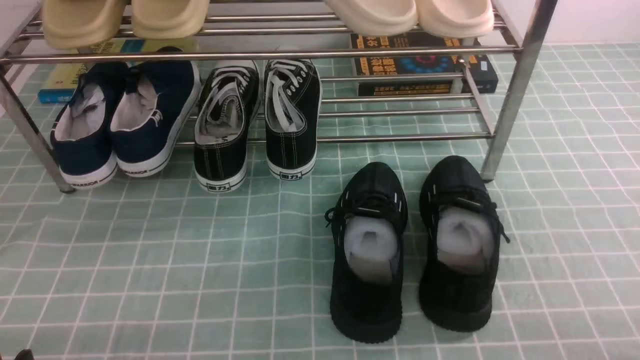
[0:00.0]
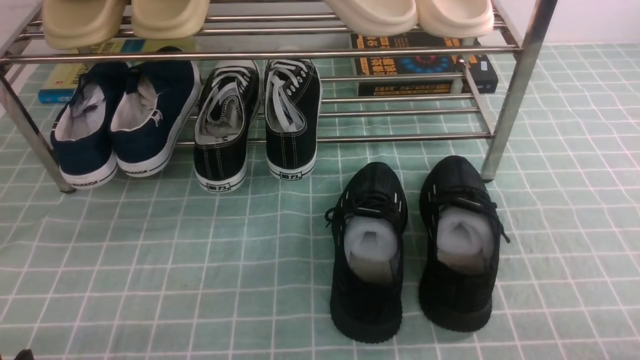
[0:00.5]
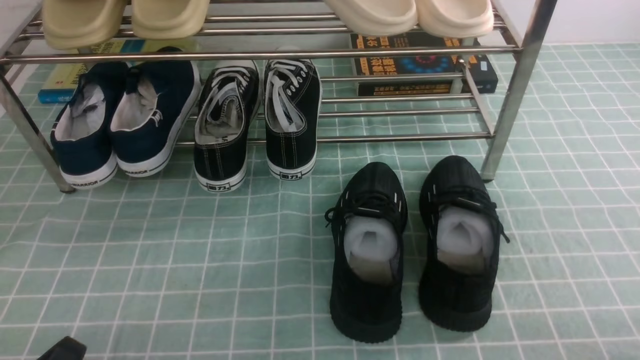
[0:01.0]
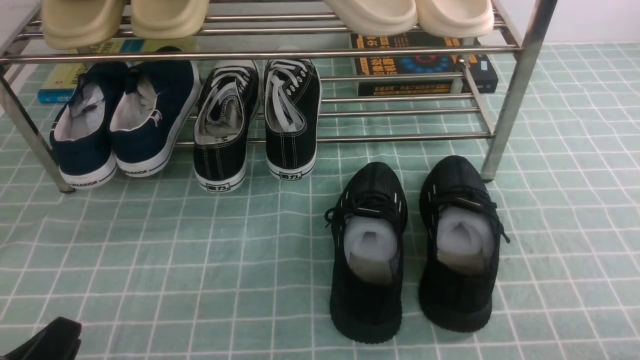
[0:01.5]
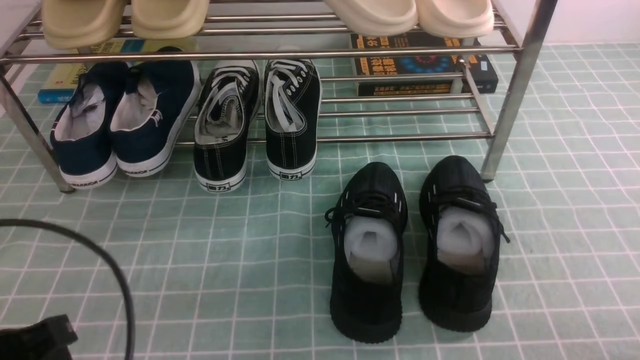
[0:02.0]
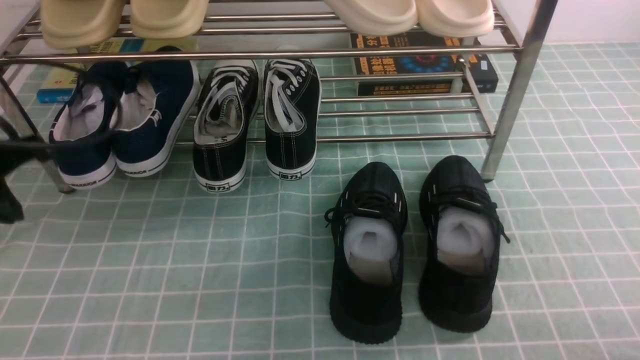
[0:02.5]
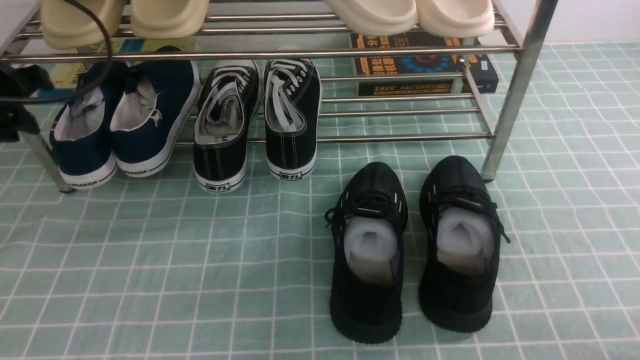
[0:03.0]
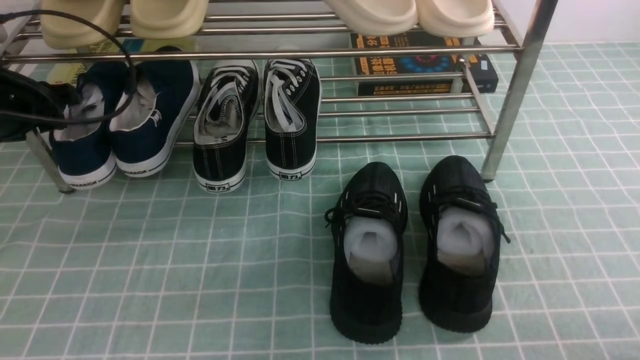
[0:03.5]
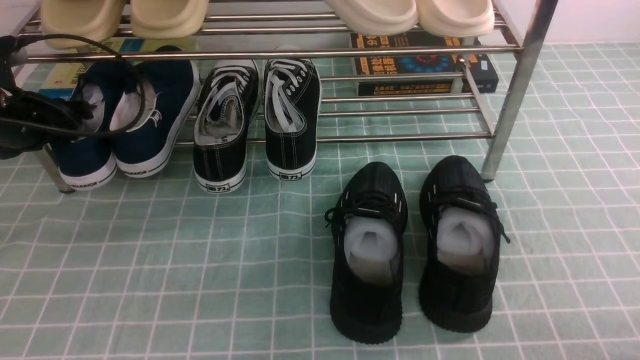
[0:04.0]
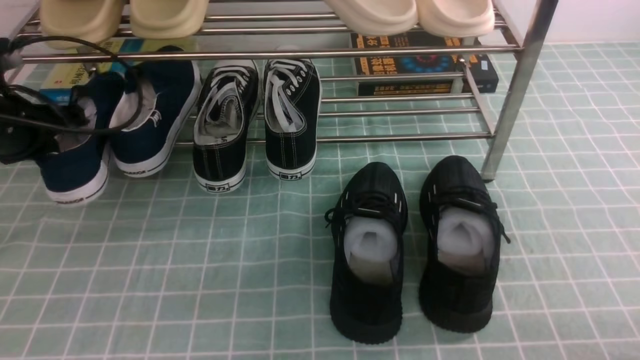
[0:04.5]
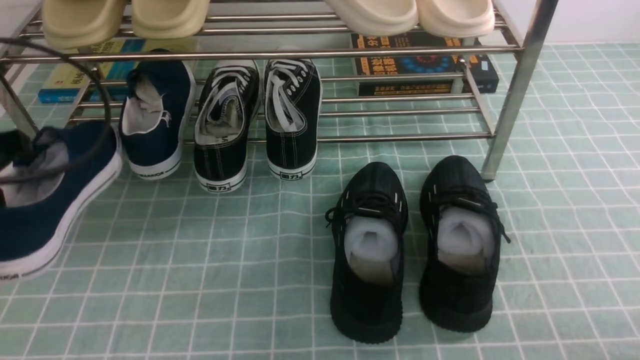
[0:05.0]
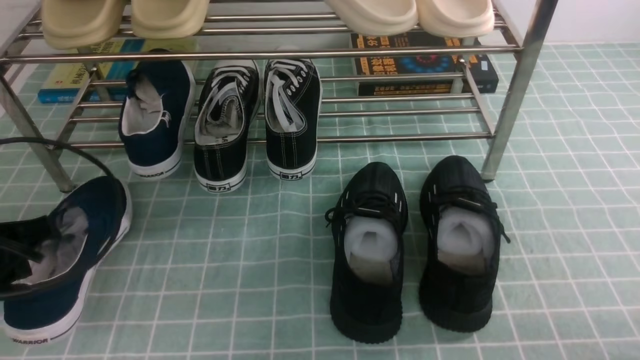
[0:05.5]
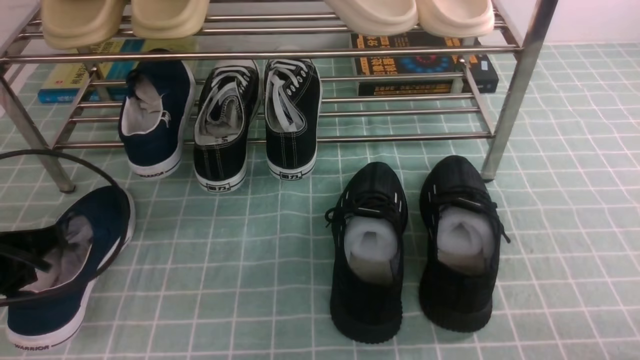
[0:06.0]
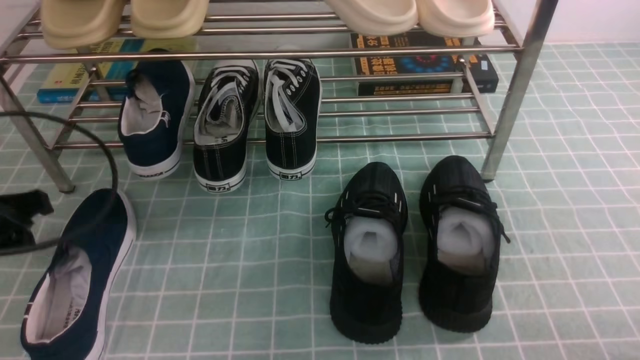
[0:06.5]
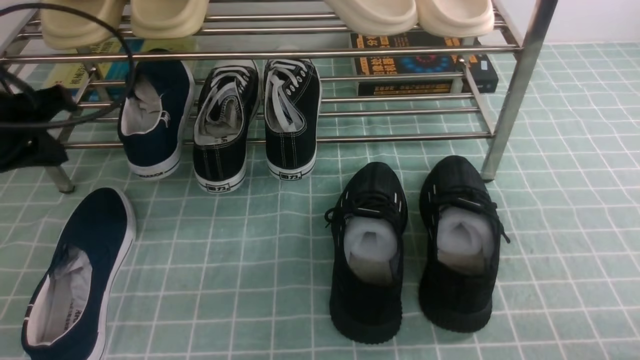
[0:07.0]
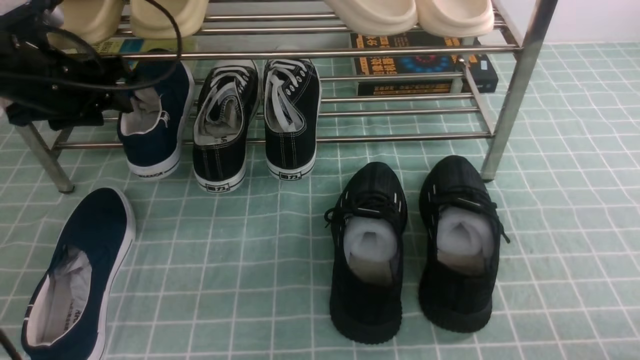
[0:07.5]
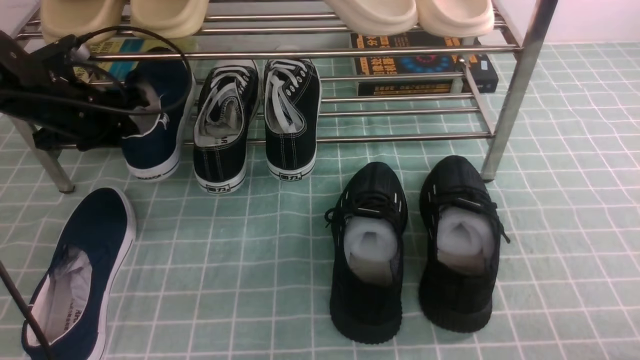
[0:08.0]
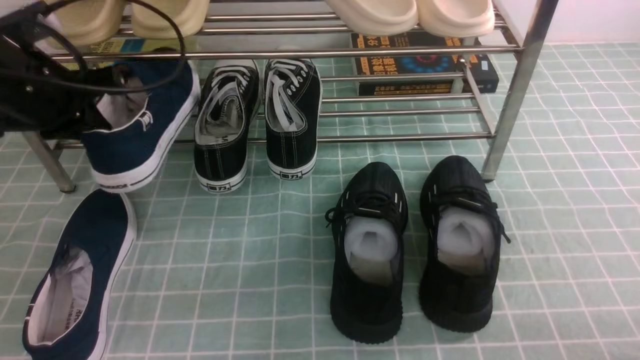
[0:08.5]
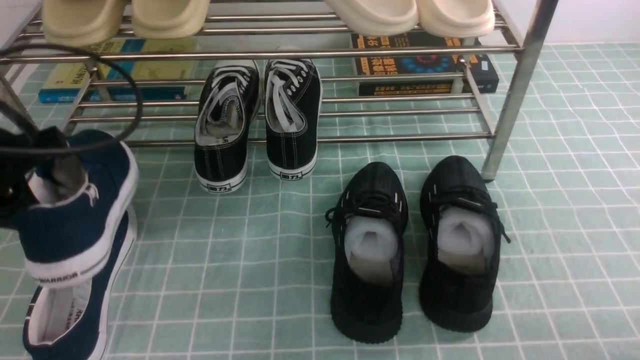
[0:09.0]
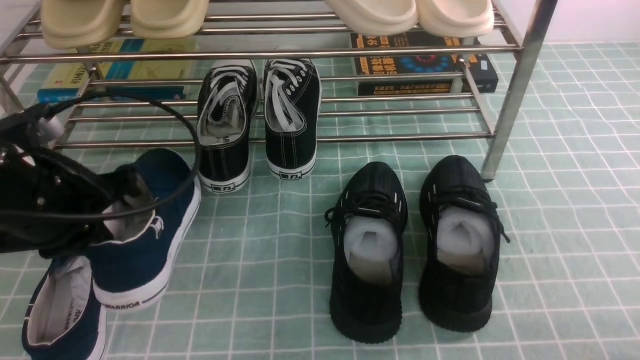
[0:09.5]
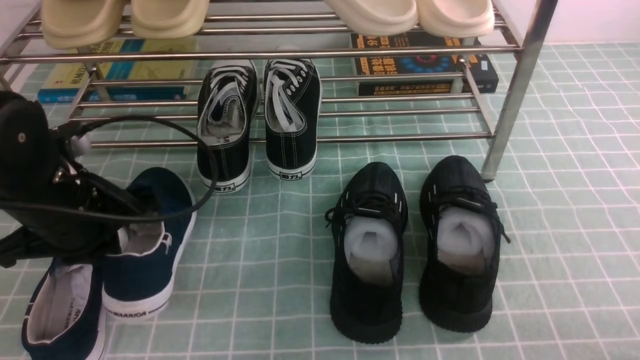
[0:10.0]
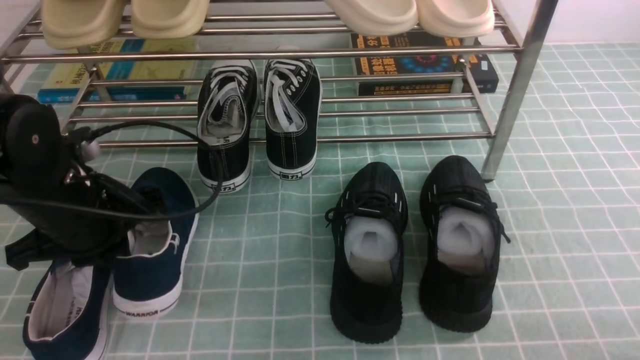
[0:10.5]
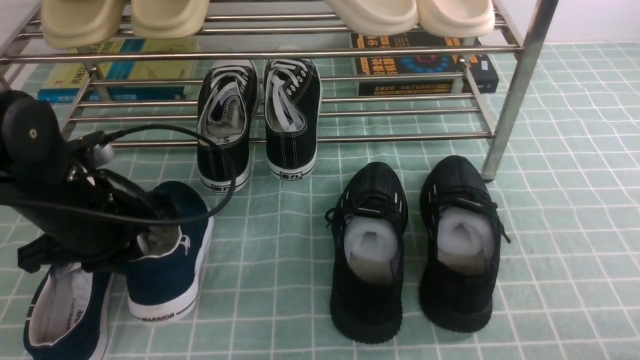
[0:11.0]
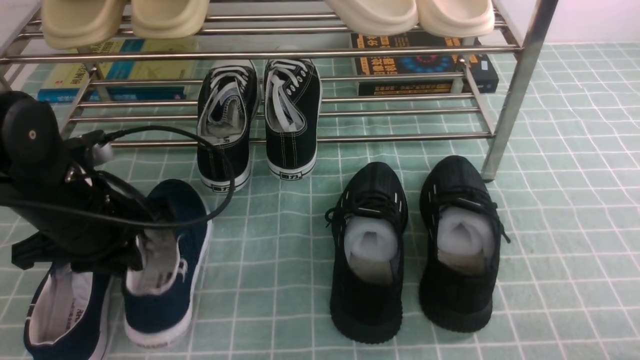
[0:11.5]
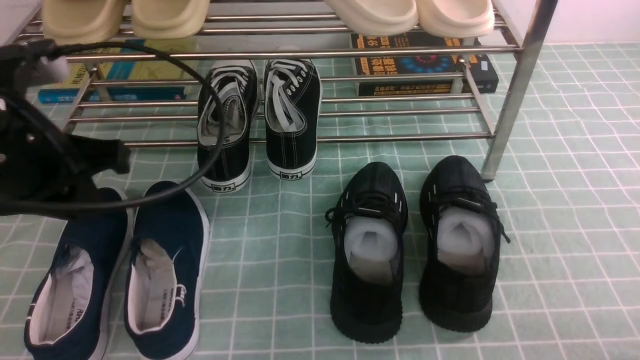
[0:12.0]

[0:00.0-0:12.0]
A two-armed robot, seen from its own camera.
Step, 0:00.0 to 0:04.0: use the left arm to clamp a shoe on the left side of the shoe rack.
Step, 0:04.5 to 0:06.0: Use your left arm to remove the clamped shoe from the shoe rack and put it down.
Step, 0:06.5 to 0:08.0: use the left arm to clamp a shoe on the left side of the shoe rack.
Step, 0:08.5 to 0:11.5: Use your left arm to remove the clamped shoe from the shoe rack and put it down.
0:00.0 to 0:02.0: The left gripper goes about 10 cm upward and forward, and closes its fingers.
0:02.0 to 0:04.0: The left gripper travels forward by approximately 30 cm, and opens.
0:04.0 to 0:06.0: The left gripper is displaced backward by approximately 15 cm, and closes up.
0:06.0 to 0:08.0: The left gripper travels forward by about 20 cm, and opens, then closes once more.
0:08.0 to 0:10.0: The left gripper goes approximately 15 cm backward, and closes.
0:10.0 to 0:12.0: The left gripper moves upward, approximately 10 cm.

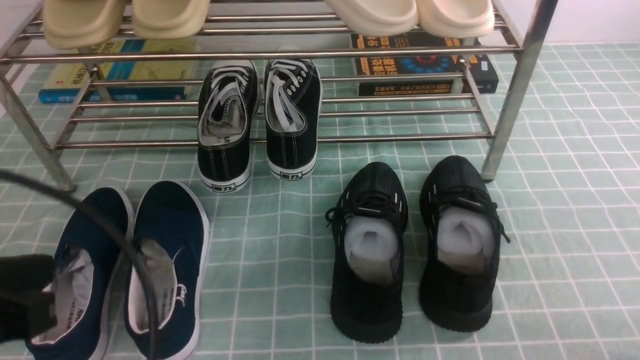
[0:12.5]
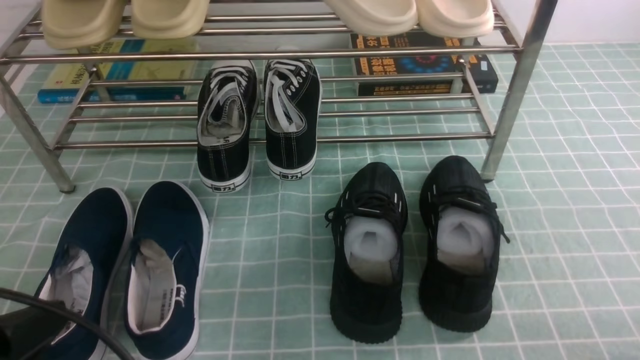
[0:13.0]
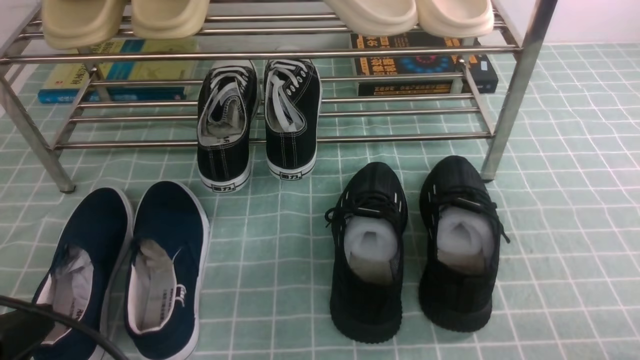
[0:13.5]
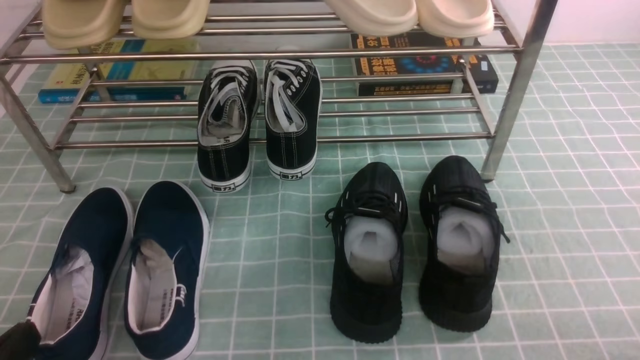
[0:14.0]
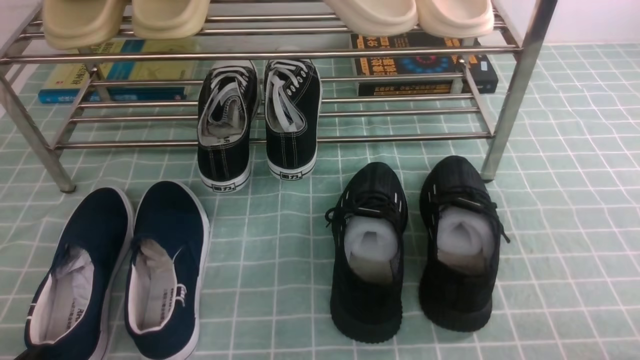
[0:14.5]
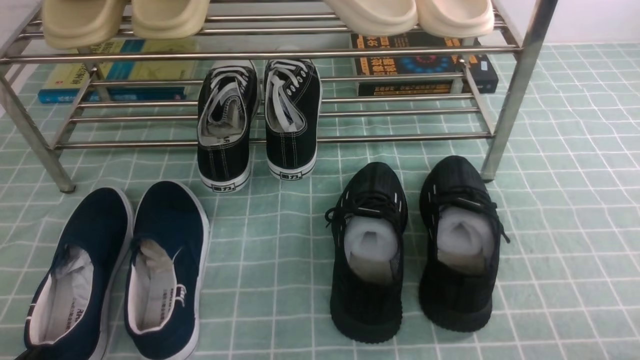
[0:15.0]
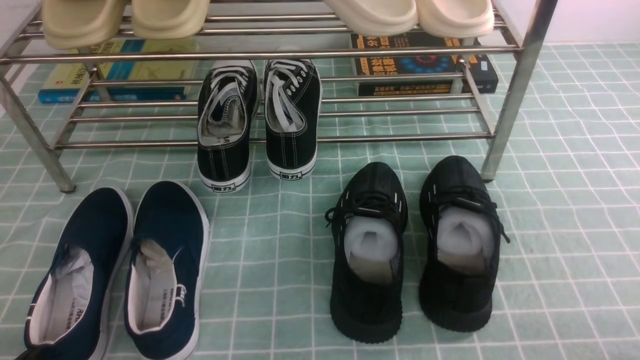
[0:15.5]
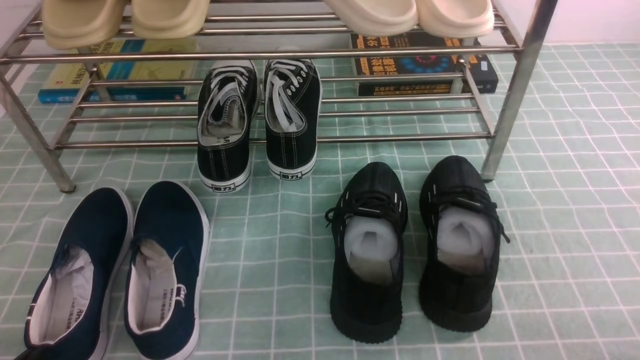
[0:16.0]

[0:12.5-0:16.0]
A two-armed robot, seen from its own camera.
0:12.5 to 0:14.5: The left gripper moves downward, roughly 15 cm.
0:14.5 to 0:16.0: Both grippers stay about where they are.
